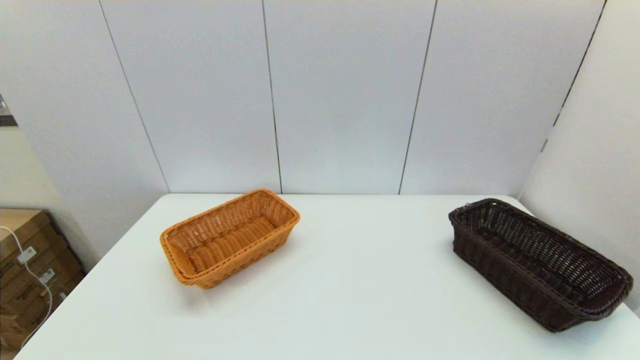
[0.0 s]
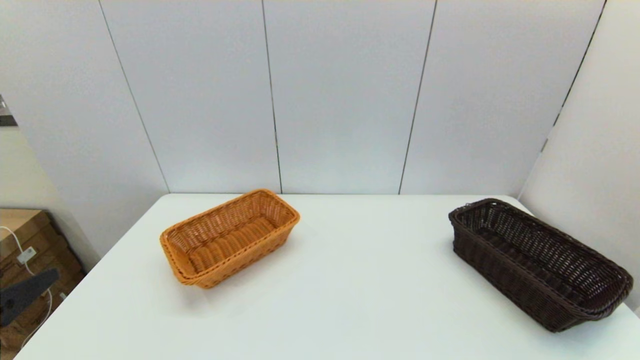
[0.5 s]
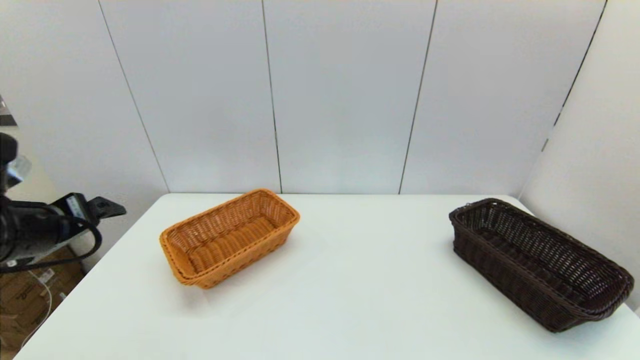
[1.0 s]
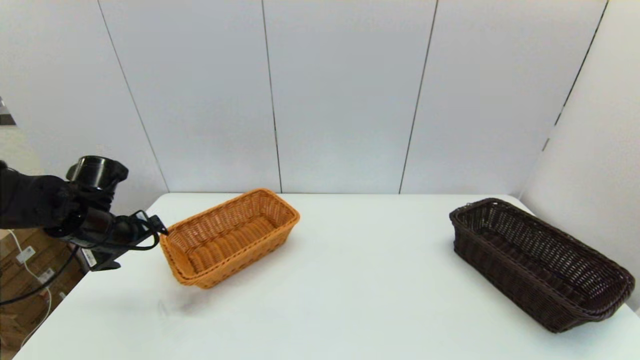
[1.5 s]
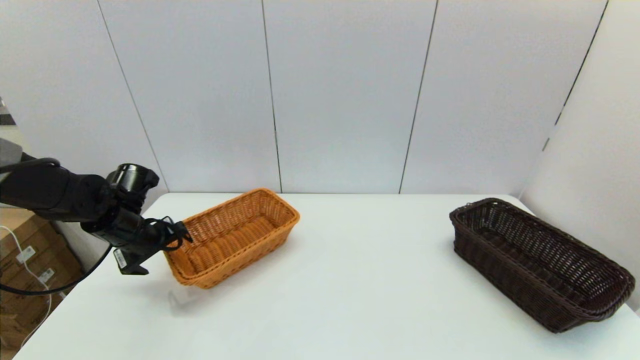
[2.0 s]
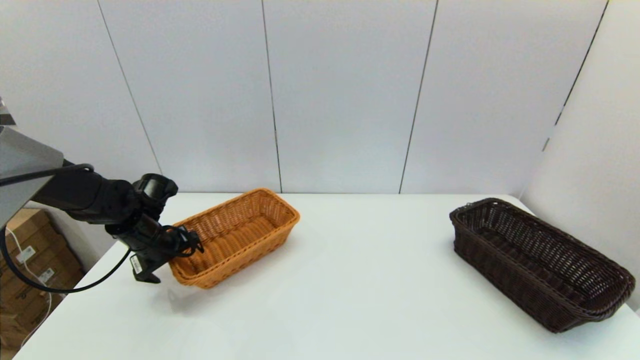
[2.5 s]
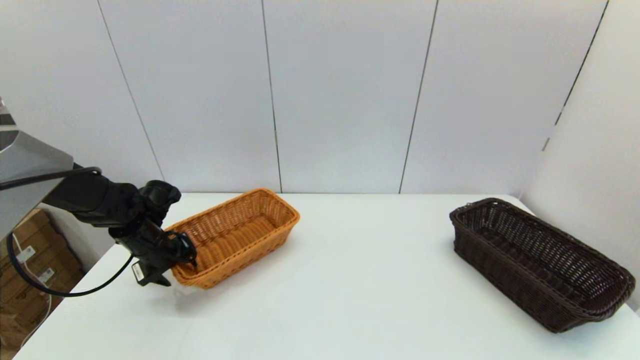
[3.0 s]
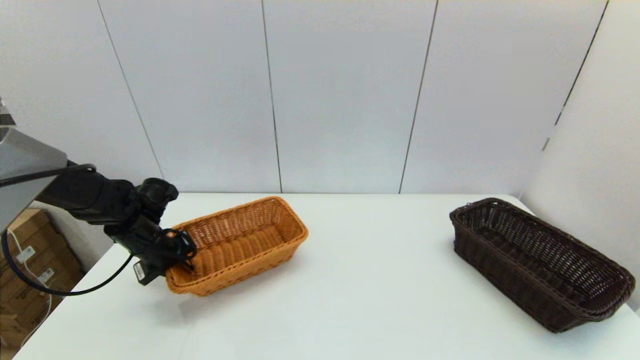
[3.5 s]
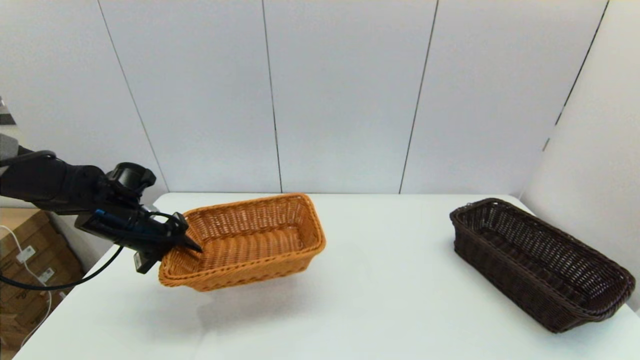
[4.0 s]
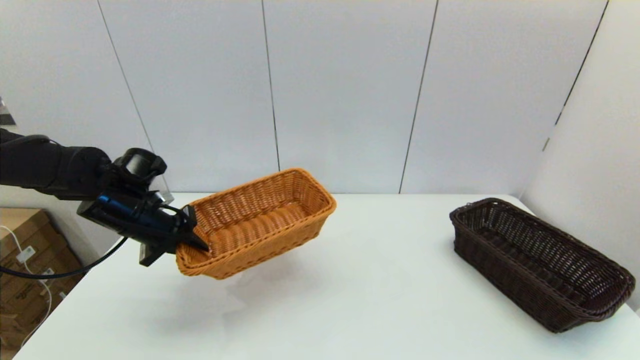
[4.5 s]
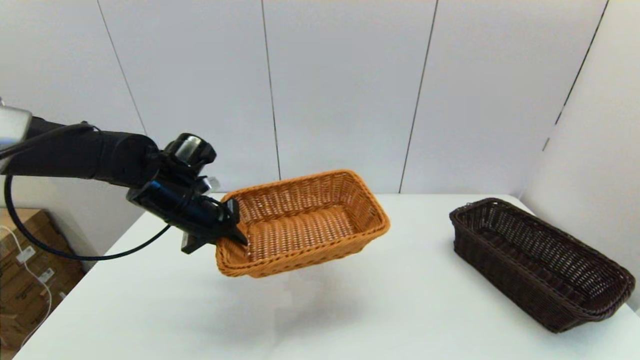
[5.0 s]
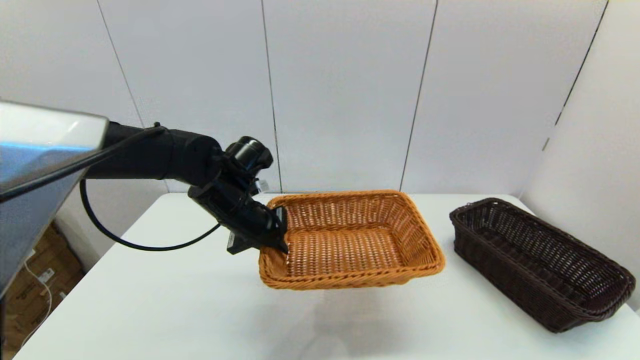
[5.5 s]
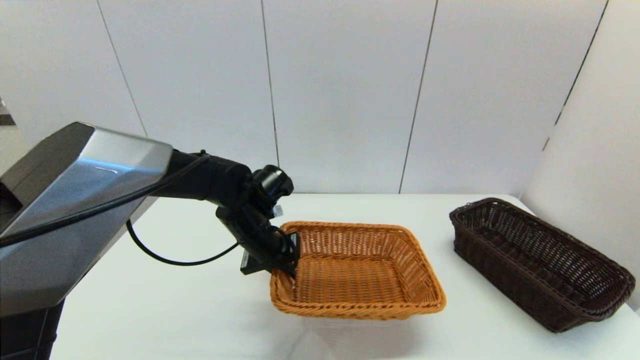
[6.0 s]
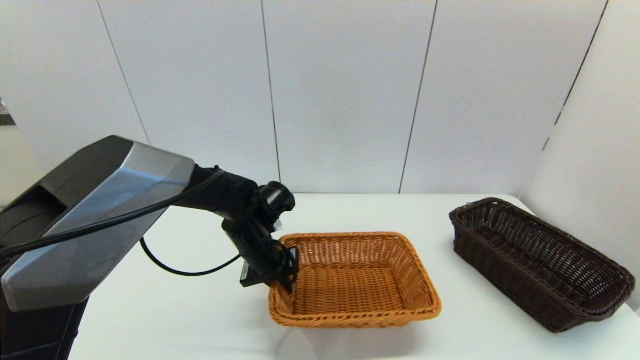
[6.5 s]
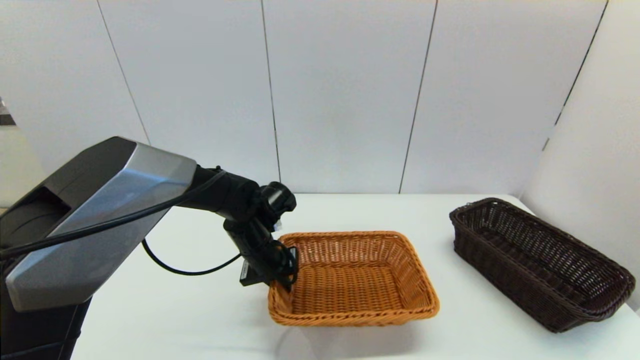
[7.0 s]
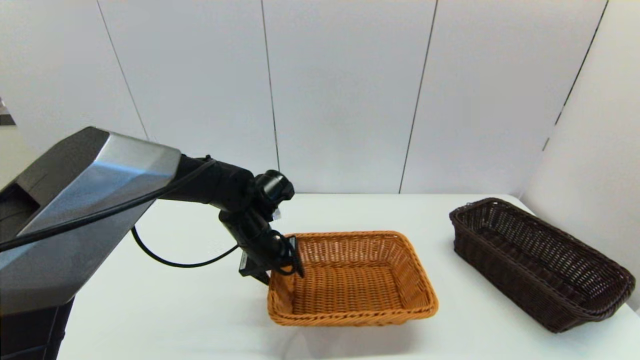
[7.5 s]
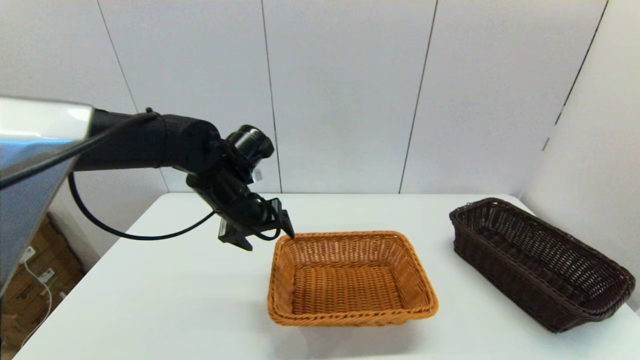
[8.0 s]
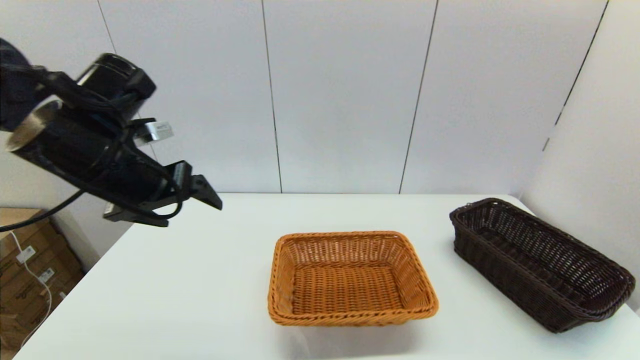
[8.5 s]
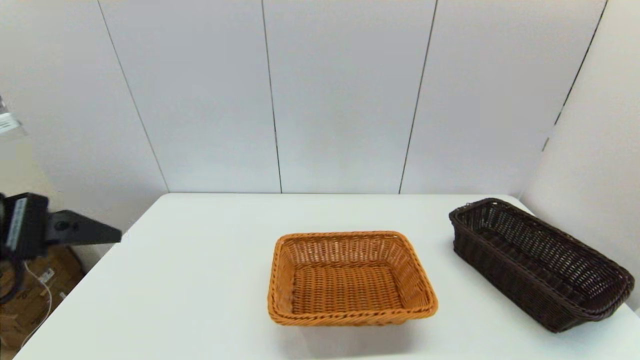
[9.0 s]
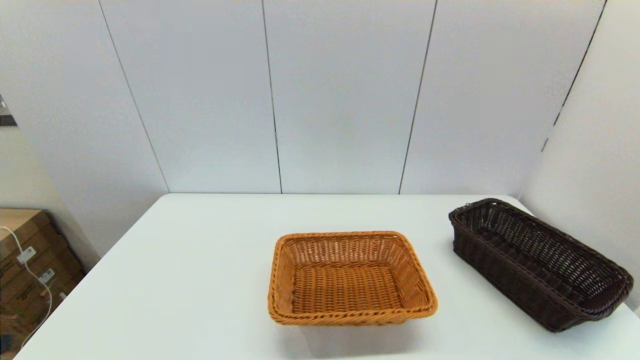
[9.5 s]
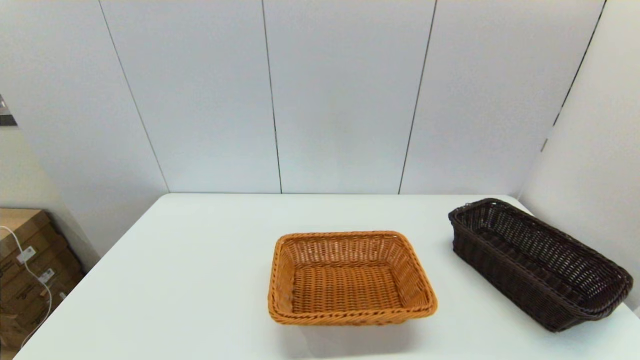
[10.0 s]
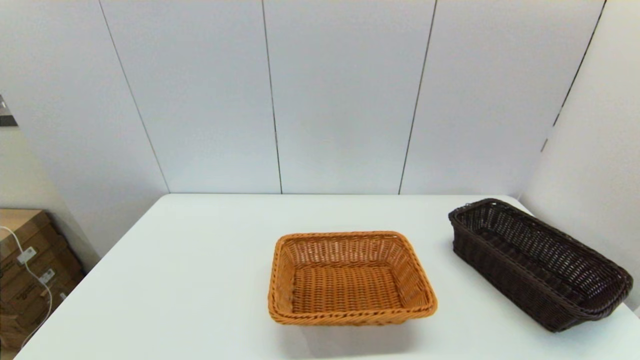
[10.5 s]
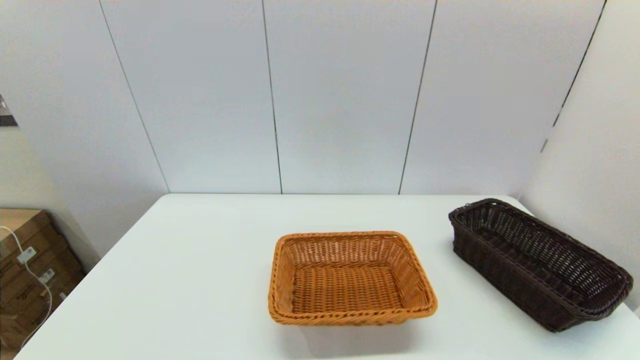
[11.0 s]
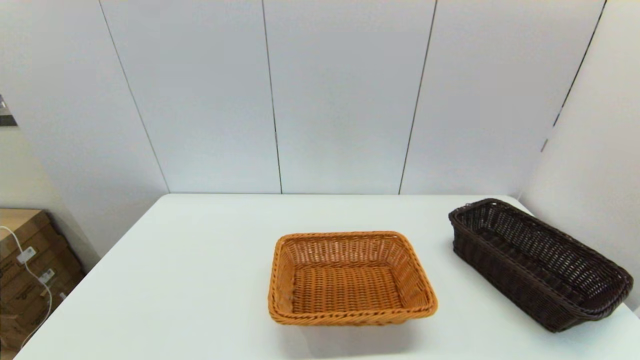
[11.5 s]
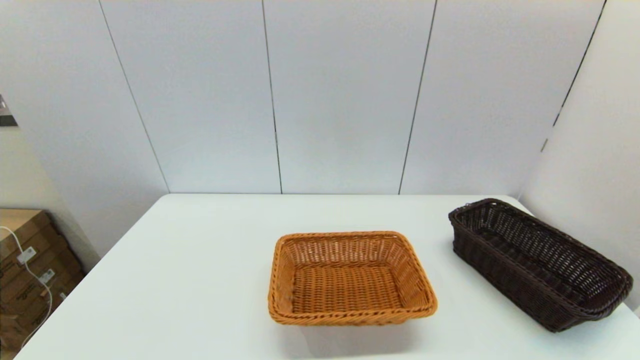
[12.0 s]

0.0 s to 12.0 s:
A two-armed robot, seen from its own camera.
Task of the whole recording: stack a basket on top of another basket.
Step, 0.0 to 3.0 s: Grasp the light basket with the left gripper.
Step, 3.5 to 8.0 s: Place the light basket on the middle of the table with the left gripper.
0.0 to 2.0 s: The left gripper goes roughly 35 cm forward.
2.0 to 4.0 s: The left gripper closes up.
4.0 to 6.0 s: The left gripper travels to the right by approximately 20 cm.
6.0 to 8.0 s: The left gripper heads upward, covering roughly 5 cm, and opens its fingers.
8.0 to 10.0 s: The left gripper shifts approximately 40 cm backward and to the left.

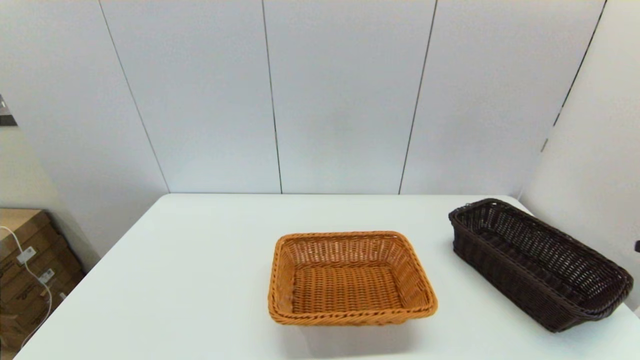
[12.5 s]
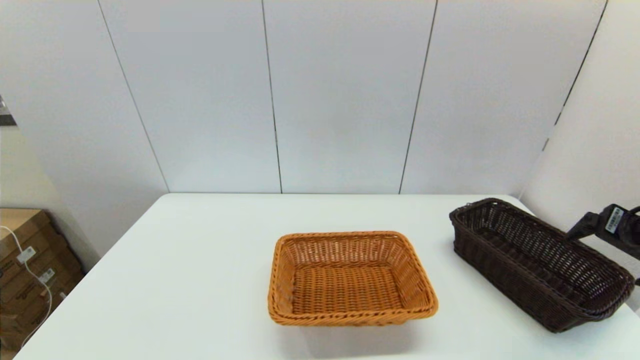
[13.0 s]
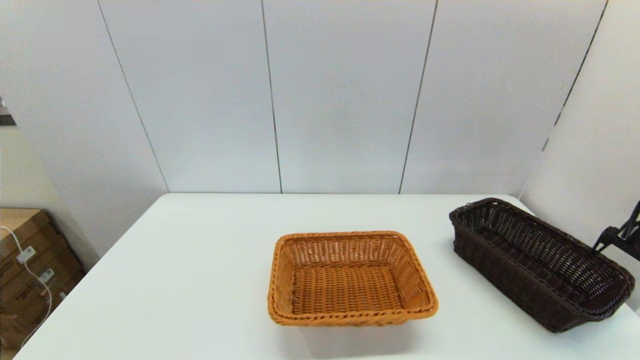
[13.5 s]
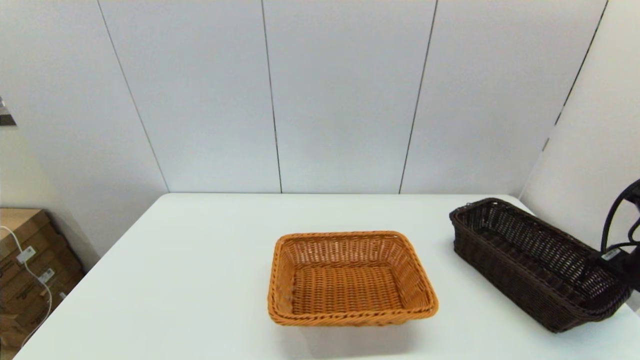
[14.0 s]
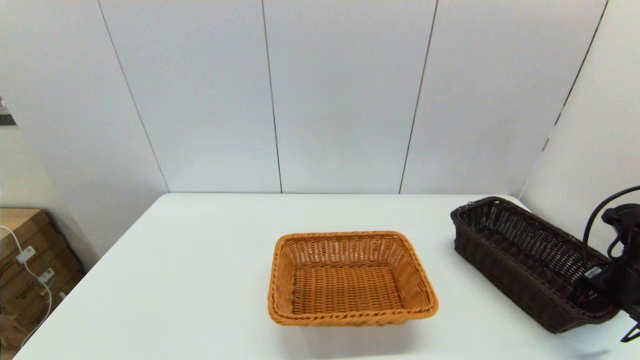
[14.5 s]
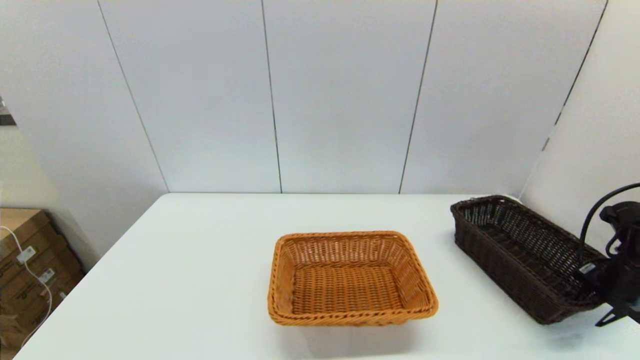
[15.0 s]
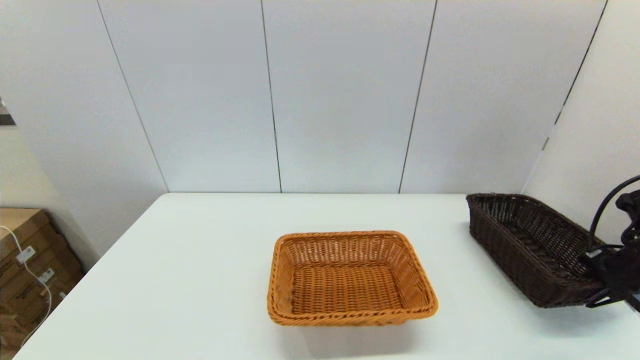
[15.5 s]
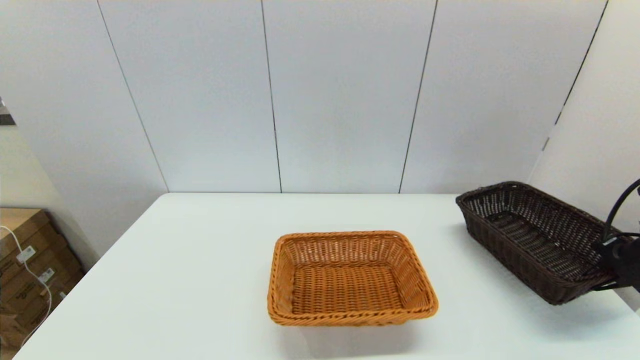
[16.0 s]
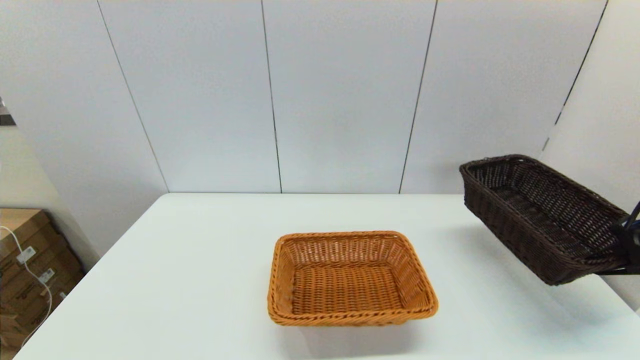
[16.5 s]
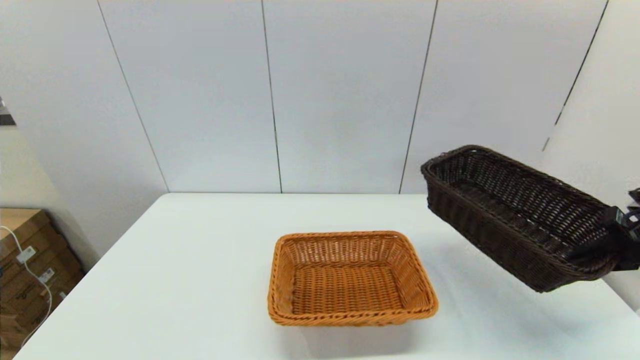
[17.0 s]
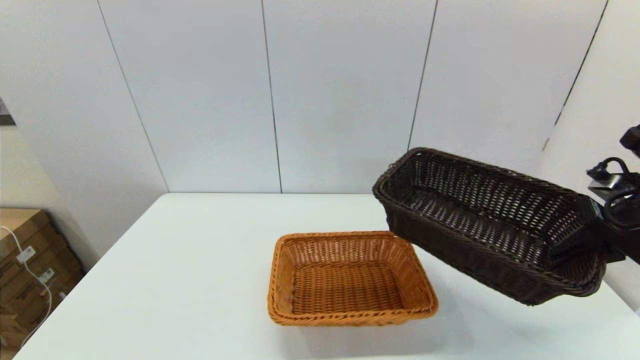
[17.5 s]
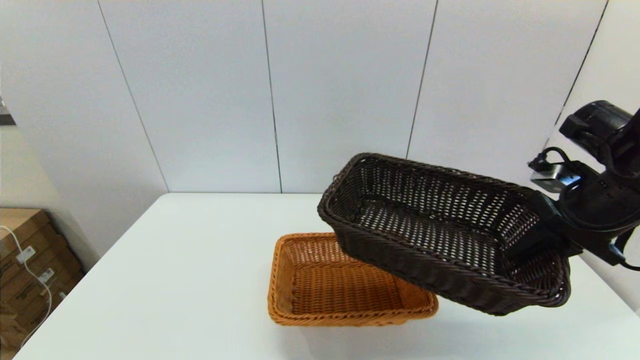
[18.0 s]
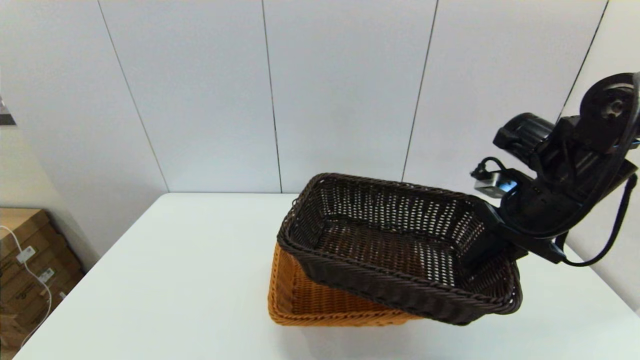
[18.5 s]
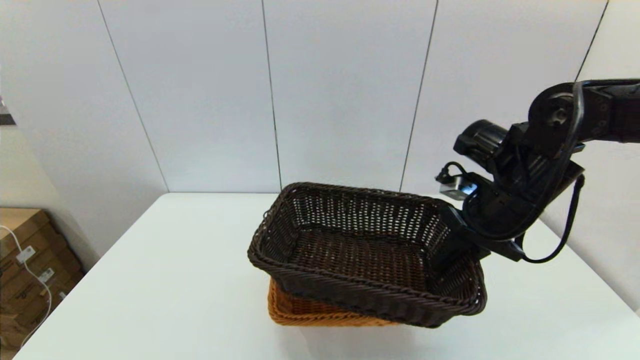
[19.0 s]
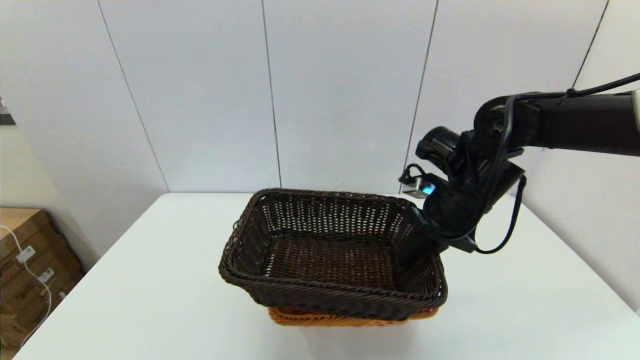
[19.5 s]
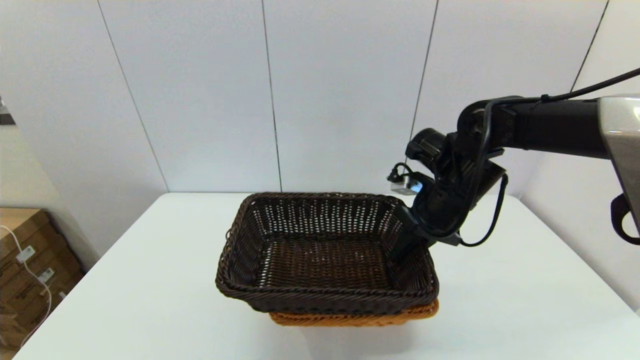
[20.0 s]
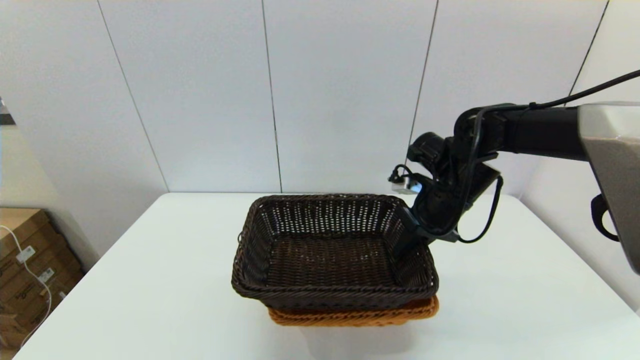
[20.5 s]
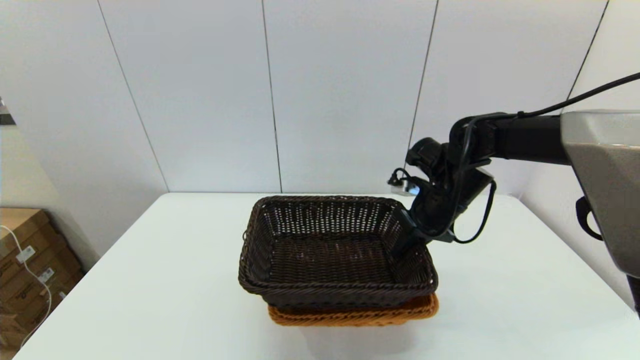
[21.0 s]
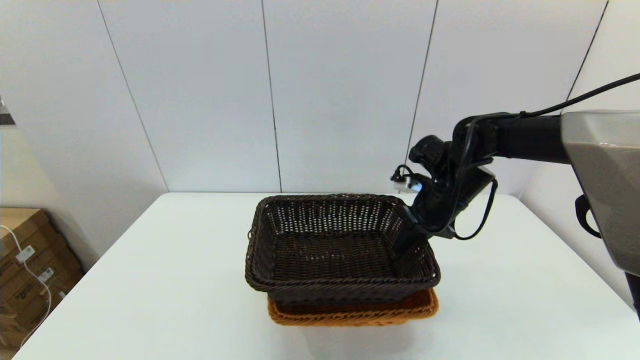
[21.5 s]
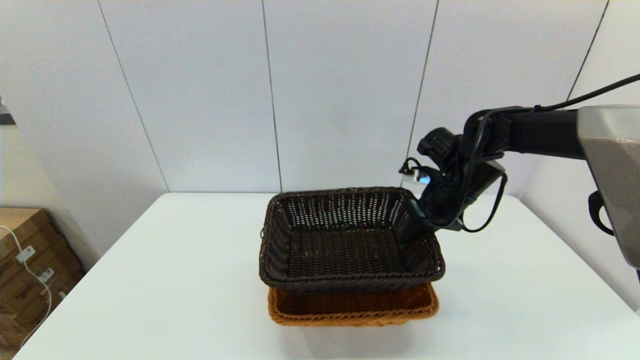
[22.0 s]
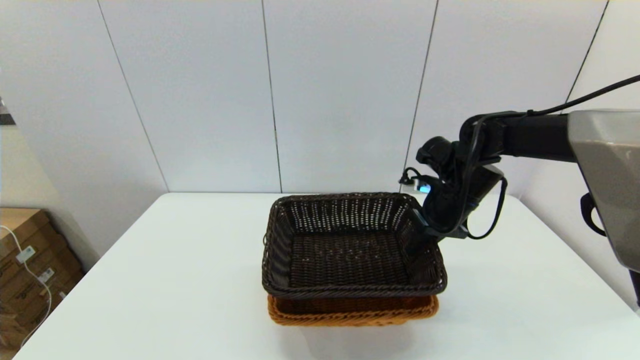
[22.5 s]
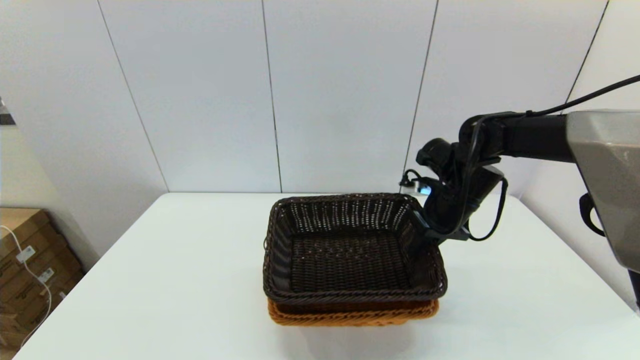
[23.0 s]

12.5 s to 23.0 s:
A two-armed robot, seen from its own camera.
Task of the whole recording: stack a basket on top of another basket.
Step, 12.5 to 14.5 s: Grasp the dark basket with the right gripper.
12.5 to 14.5 s: The right gripper goes roughly 30 cm downward, forward and to the right.
14.5 to 16.5 s: The right gripper is displaced upward by about 10 cm, and closes up.
16.5 to 19.0 s: The right gripper heads to the left, covering roughly 25 cm.
19.0 to 21.0 s: The right gripper travels forward and downward by roughly 10 cm.
21.0 to 23.0 s: There are only small adjustments of the grippers.
